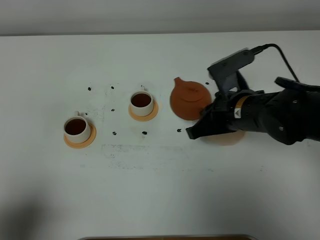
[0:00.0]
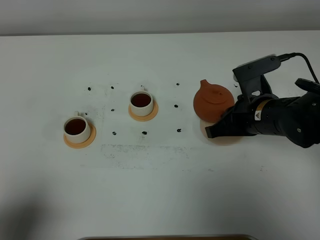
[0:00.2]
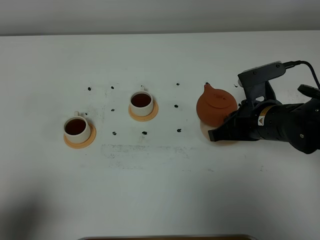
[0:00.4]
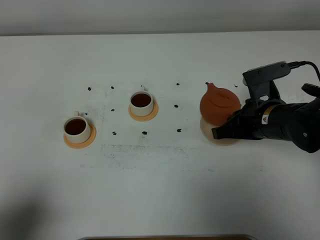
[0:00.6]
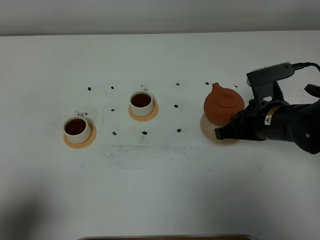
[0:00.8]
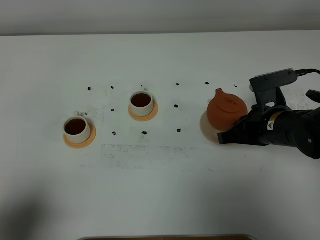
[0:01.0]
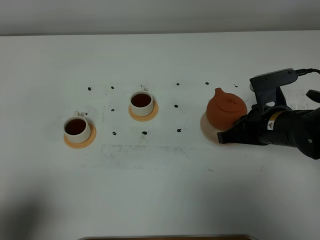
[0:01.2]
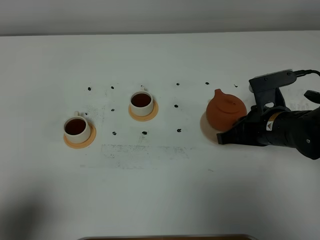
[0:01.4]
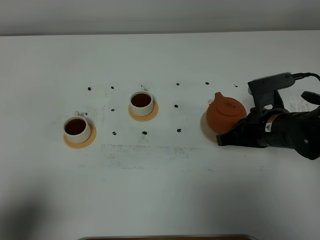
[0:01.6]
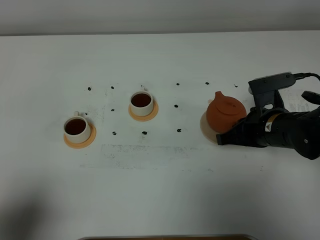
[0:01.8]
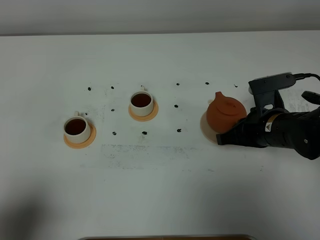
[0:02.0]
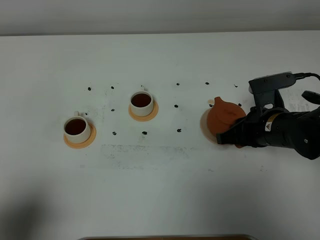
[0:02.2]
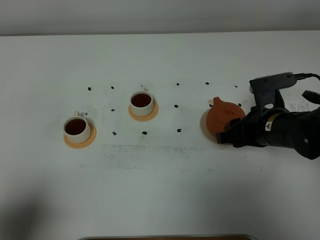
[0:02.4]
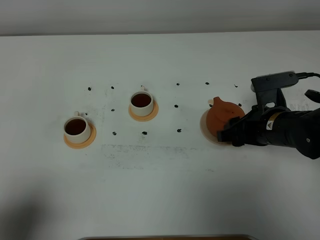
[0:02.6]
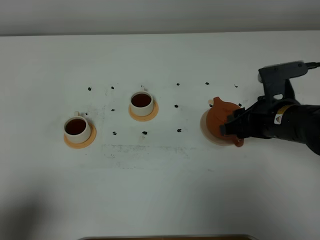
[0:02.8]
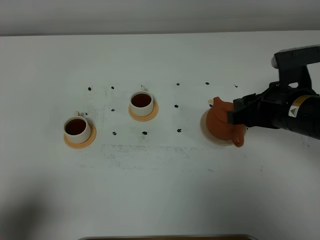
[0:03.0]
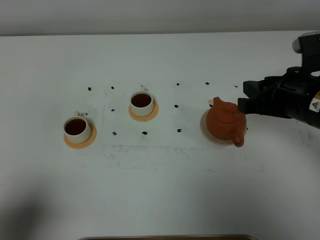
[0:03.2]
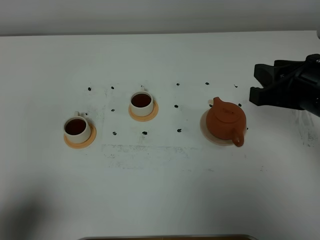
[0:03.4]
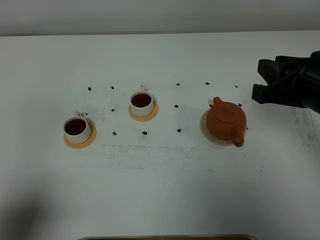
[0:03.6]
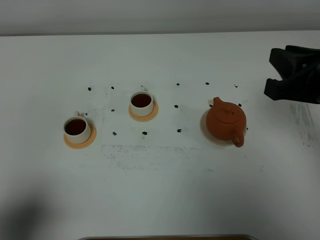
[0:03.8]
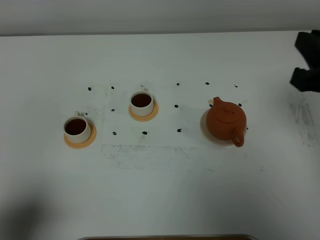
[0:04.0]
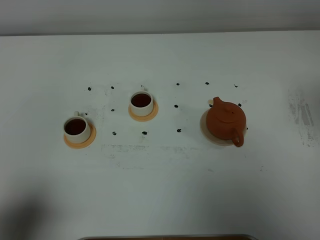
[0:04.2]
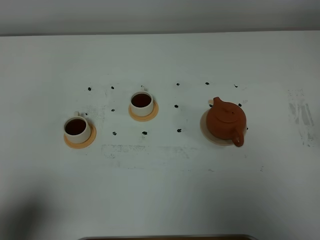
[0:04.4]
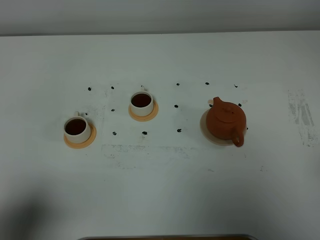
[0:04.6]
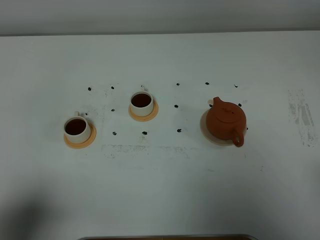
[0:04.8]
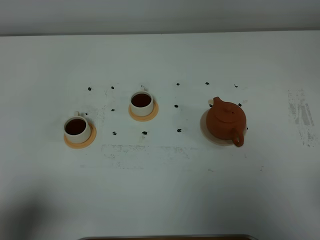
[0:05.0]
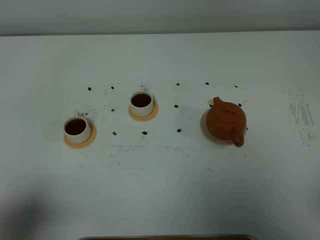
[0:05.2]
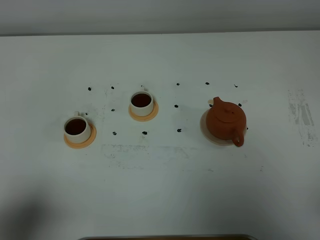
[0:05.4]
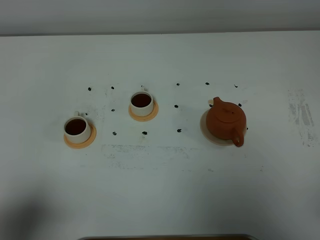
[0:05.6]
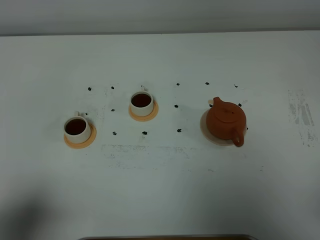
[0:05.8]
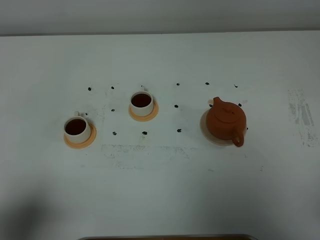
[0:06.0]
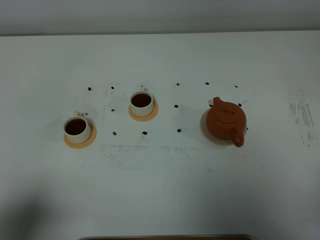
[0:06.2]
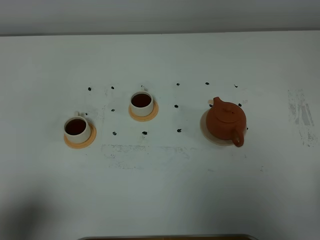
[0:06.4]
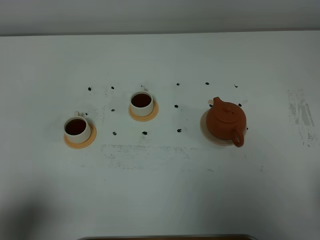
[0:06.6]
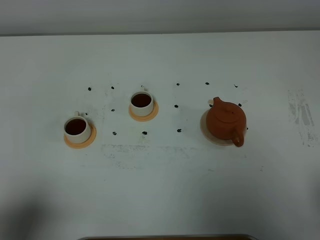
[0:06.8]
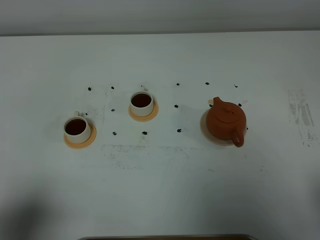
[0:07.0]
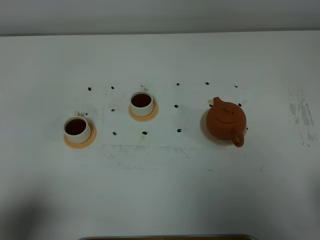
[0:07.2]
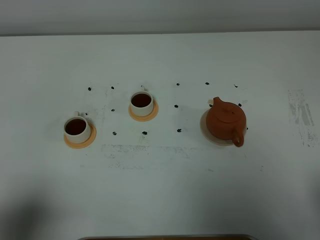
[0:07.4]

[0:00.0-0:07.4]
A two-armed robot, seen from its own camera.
Task of the whole recording: grasp the brown teapot and pour the tea into the two white teacups one by one, put the brown teapot back in its original place.
0.0 to 1.4 s: The right gripper goes some 5 cm to the right.
1.4 to 3.0 s: The right gripper moves upward, approximately 10 cm, and opens its fingers.
3.0 to 4.4 s: The right gripper travels backward, upward and to the right by about 20 cm, and closes up.

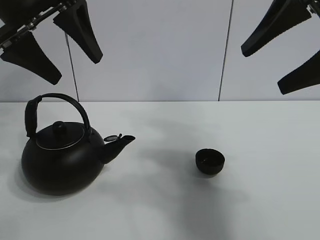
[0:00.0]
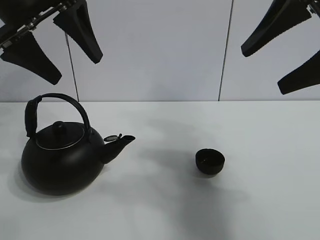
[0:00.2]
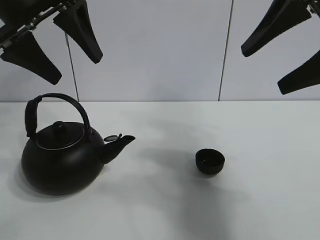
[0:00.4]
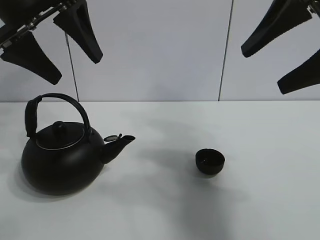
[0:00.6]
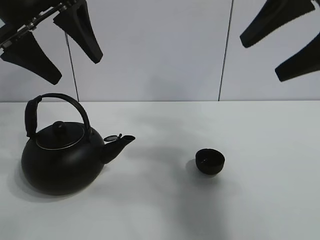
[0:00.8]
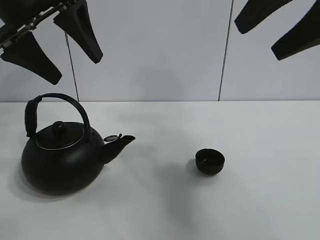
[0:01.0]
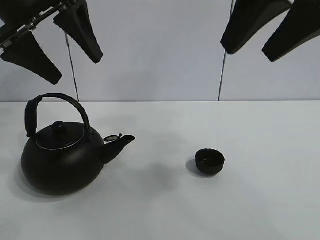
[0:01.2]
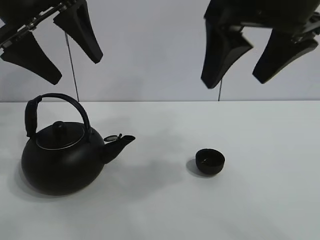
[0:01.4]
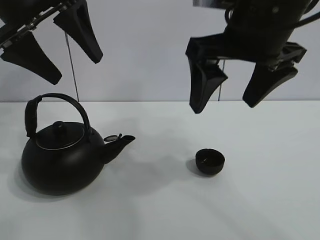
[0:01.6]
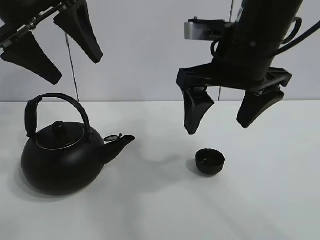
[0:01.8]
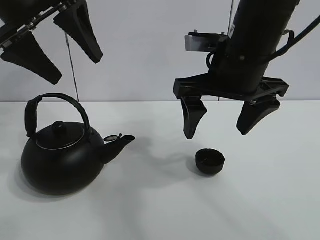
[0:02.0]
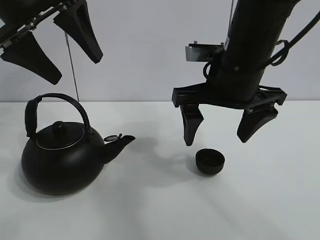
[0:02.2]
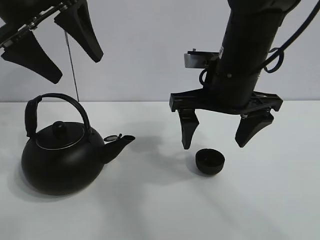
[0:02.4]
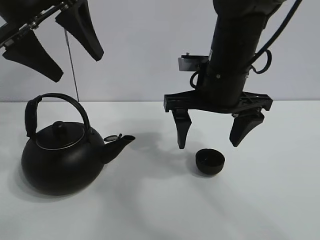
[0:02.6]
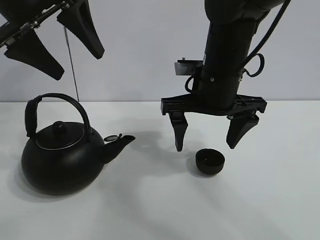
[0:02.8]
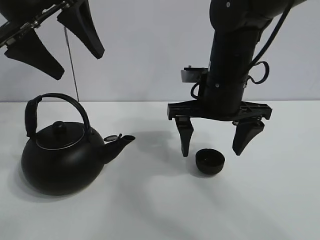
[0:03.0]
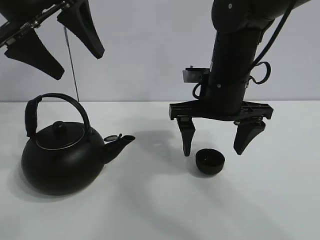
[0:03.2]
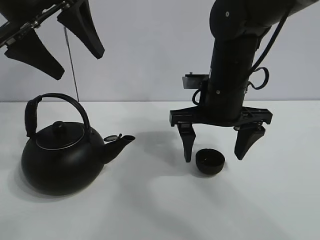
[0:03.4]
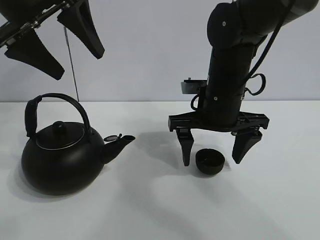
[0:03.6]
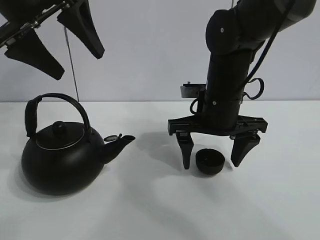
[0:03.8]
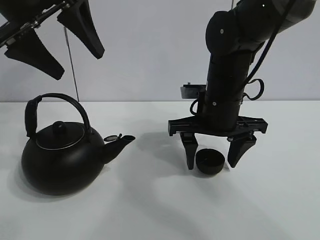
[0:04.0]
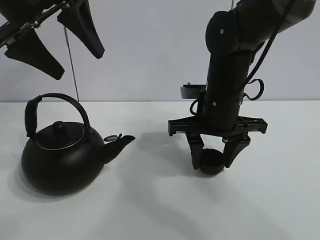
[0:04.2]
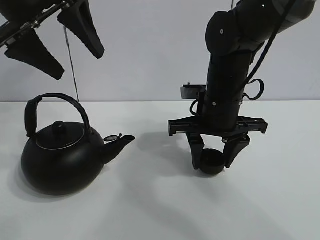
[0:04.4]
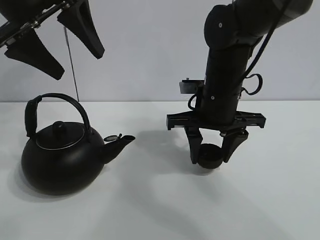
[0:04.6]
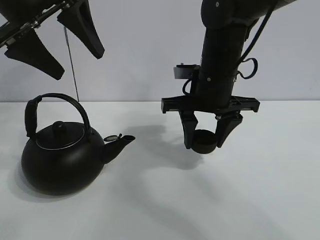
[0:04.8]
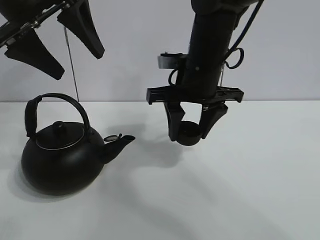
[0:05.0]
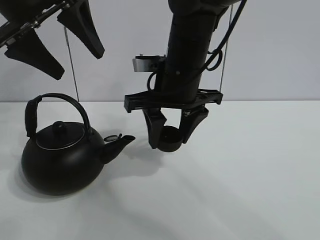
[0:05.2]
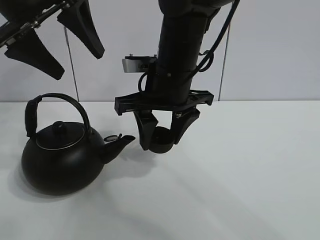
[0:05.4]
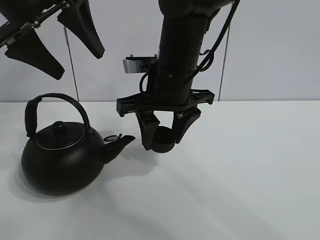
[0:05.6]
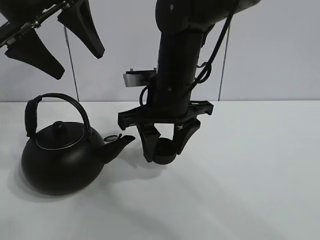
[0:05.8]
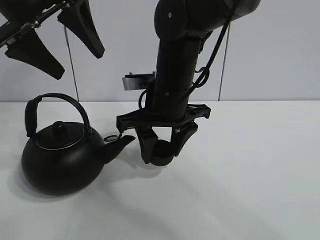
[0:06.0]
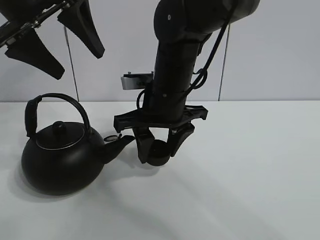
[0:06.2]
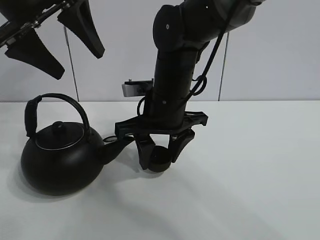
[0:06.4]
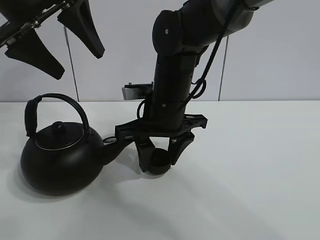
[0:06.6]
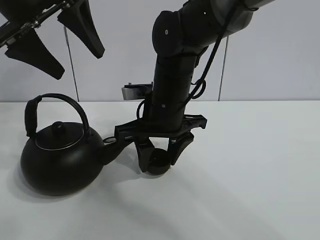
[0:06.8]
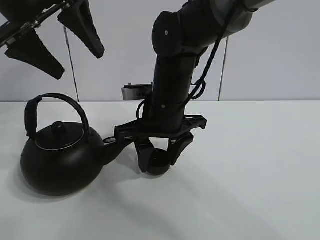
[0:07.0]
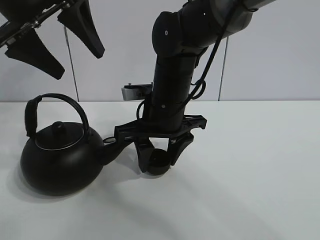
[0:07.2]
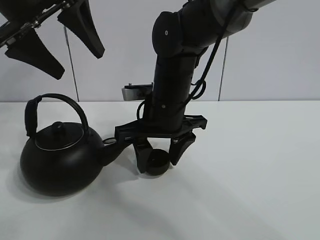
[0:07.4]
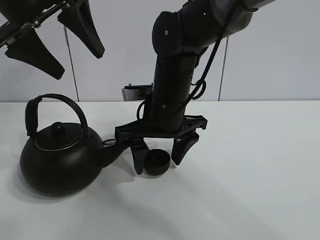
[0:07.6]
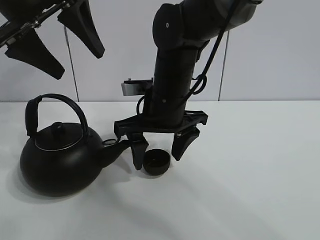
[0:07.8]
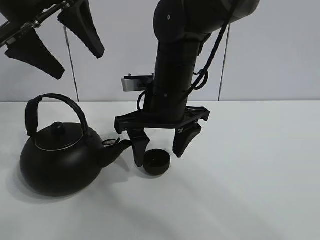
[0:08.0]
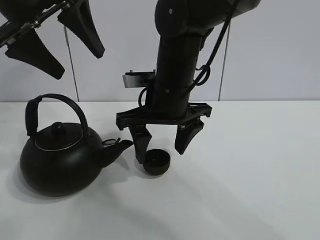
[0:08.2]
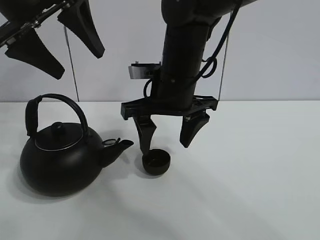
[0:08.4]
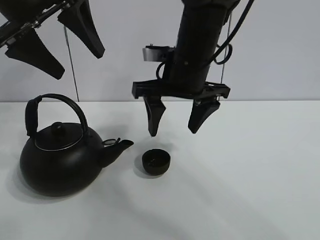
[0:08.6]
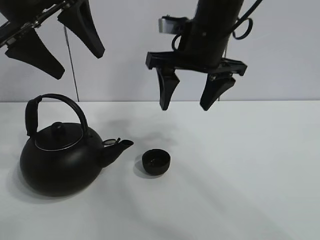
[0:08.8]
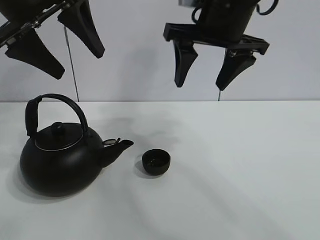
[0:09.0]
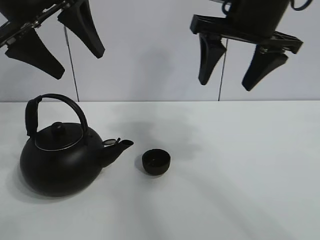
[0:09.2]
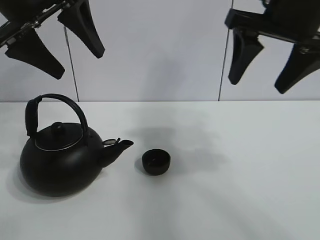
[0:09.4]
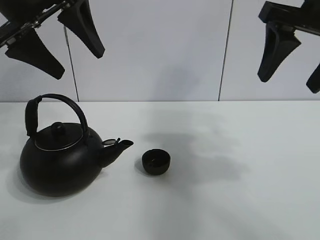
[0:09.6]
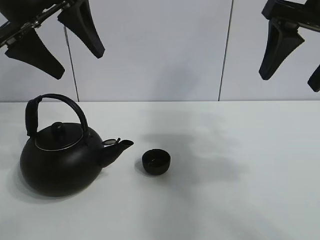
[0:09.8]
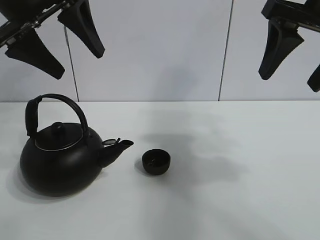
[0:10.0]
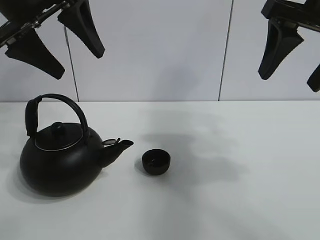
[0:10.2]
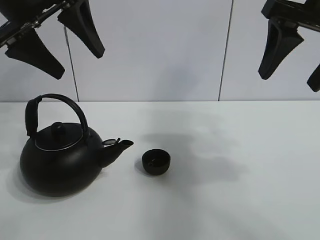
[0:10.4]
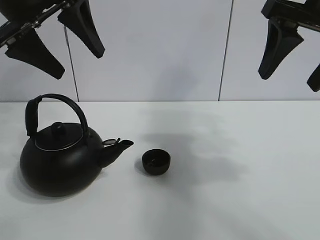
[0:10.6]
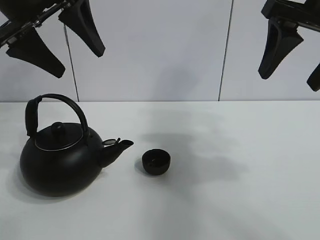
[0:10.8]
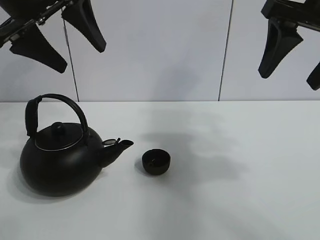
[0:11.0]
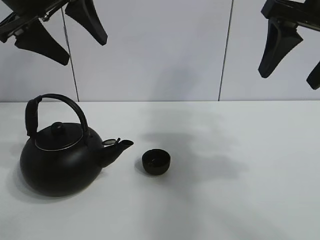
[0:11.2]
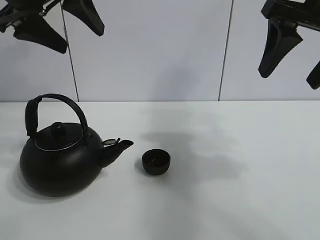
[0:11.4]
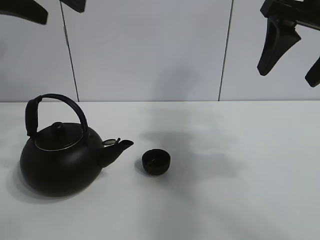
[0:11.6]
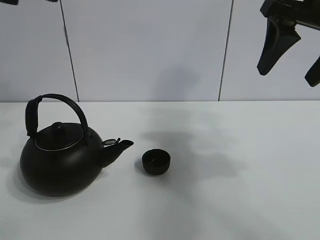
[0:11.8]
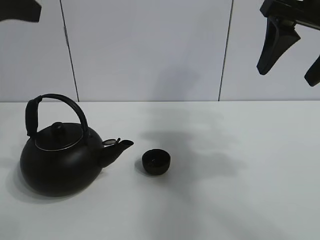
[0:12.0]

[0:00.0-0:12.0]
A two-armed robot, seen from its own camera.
Task of the whole recording: pour tea into the teacup.
Step, 0.0 to 4.2 s: Pick up the teacup with the right gripper.
Step, 4.4 to 7.6 s: Place the teacup in the center of view with the right gripper.
1.6 to 3.0 s: The right gripper moves downward and forward, approximately 15 cm.
3.0 to 4.4 s: The right gripper closes its fingers.
4.4 to 6.0 s: The right gripper heads to the left, covering some 10 cm.
6.0 to 7.6 s: The right gripper opens up.
7.6 to 9.0 s: The right gripper is displaced upward and to the right by roughly 15 cm.
9.0 to 10.4 s: The right gripper goes some 15 cm to the right and backward.
10.4 to 12.0 s: The left gripper heads backward and to the left, covering approximately 10 cm.

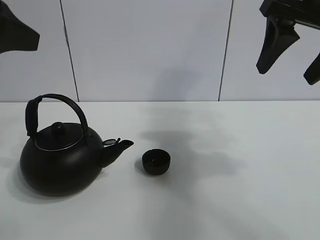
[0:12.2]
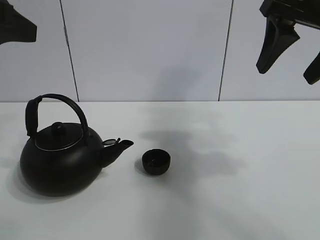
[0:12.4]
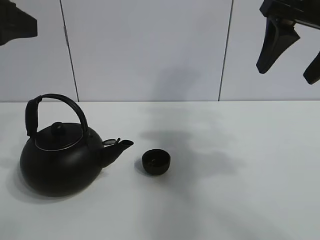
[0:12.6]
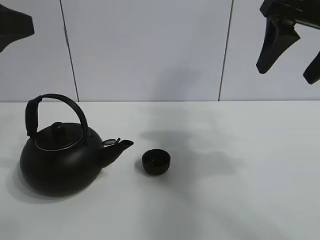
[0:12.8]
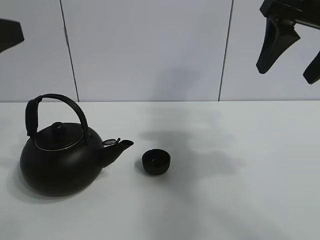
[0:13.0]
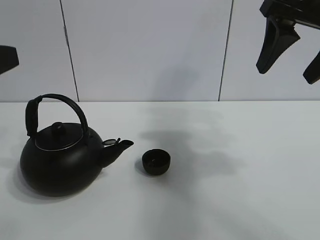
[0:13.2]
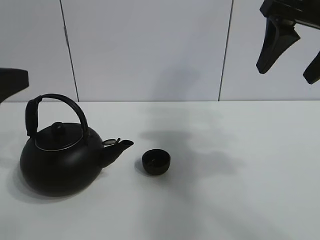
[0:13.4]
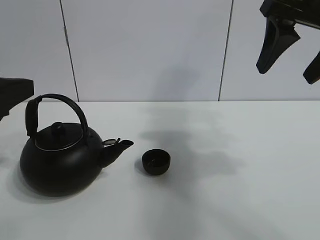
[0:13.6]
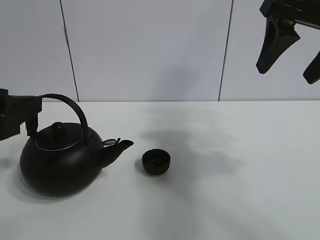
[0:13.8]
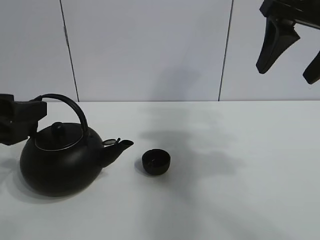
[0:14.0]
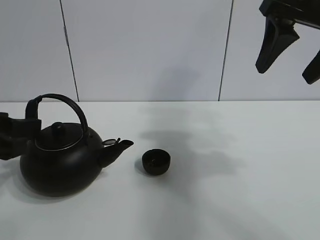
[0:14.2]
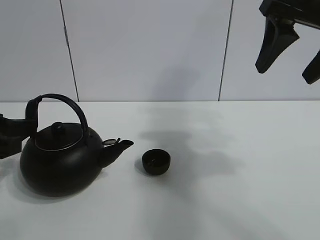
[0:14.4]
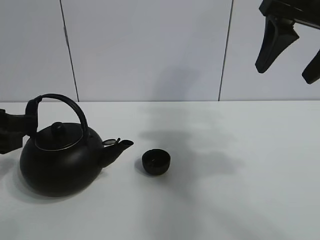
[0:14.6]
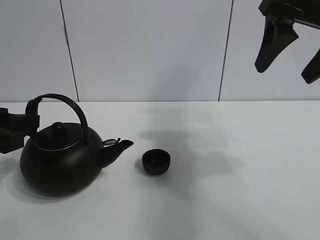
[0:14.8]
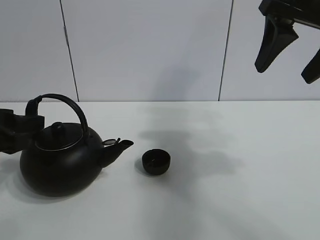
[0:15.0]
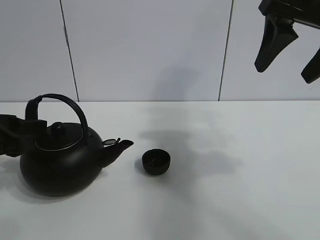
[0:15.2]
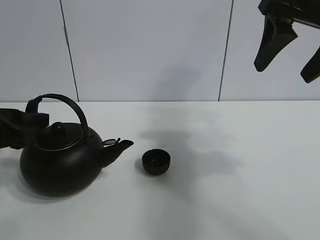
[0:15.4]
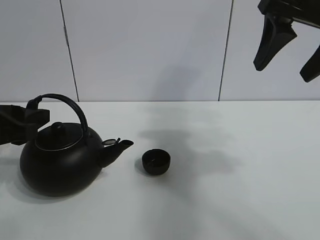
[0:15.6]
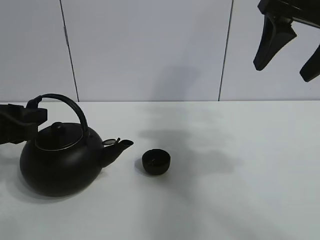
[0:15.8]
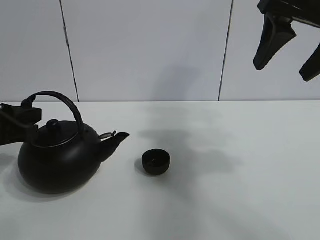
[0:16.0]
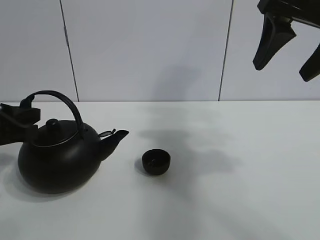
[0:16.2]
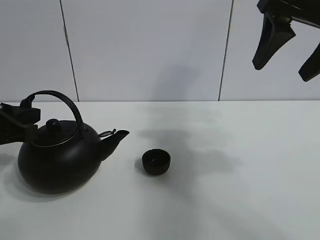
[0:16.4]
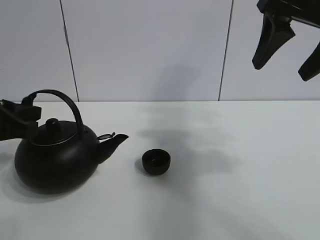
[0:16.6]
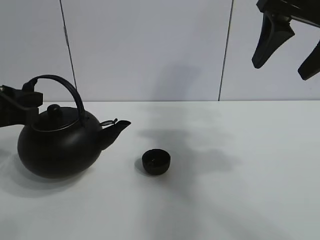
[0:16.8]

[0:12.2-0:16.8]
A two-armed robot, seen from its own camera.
Task of the whole recording: pour tea into the teacup.
Step, 12.2 to 16.2 s: Pick up the teapot with the left gripper.
12.2 to 13.8 s: The left gripper heads downward, covering some 10 cm.
13.8 to 15.2 s: The left gripper is displaced downward by approximately 5 cm.
15.2 to 16.8 s: The left gripper closes its fingers.
